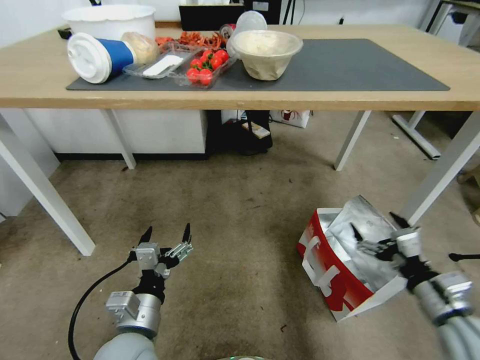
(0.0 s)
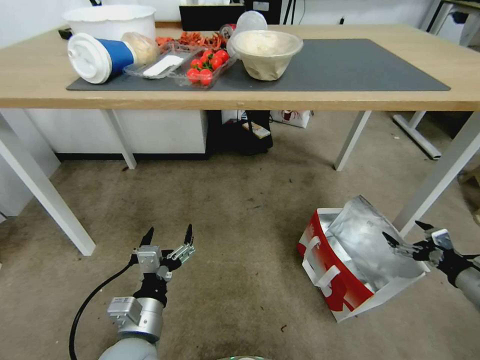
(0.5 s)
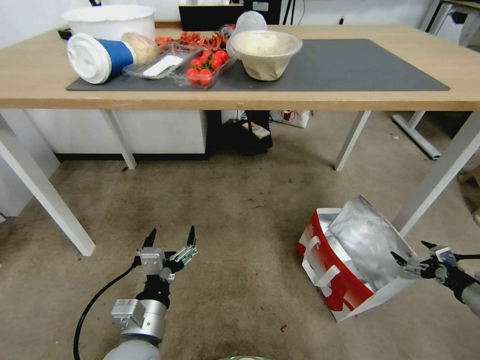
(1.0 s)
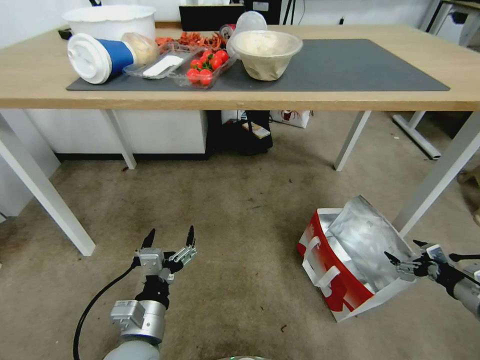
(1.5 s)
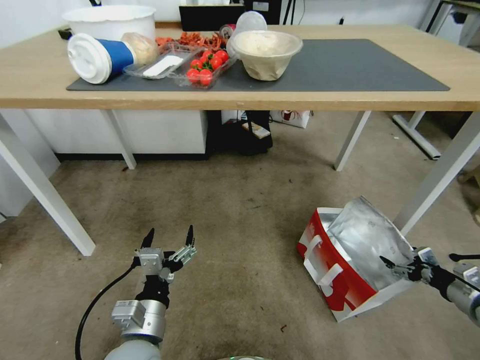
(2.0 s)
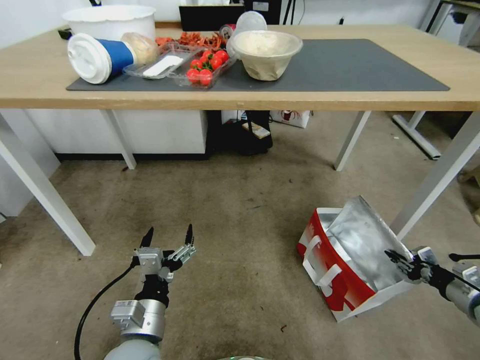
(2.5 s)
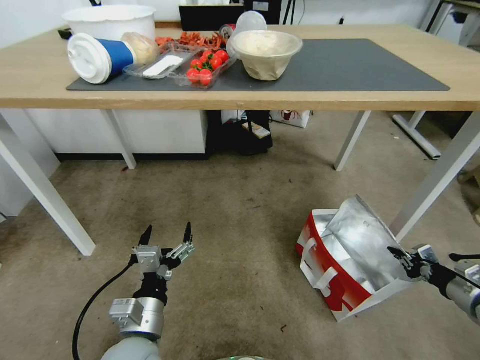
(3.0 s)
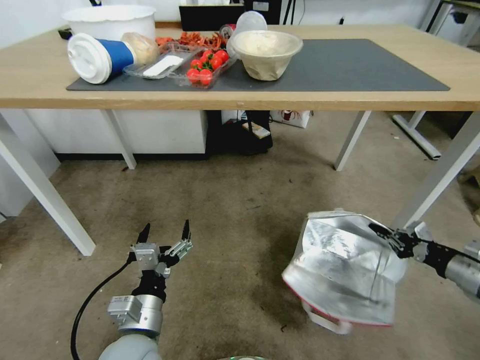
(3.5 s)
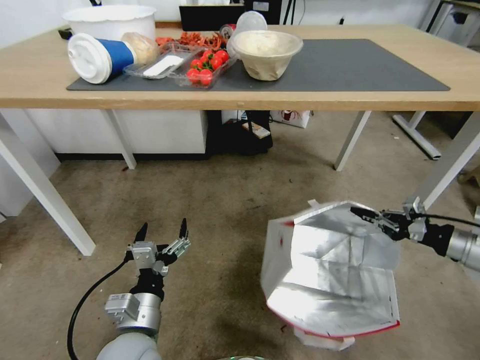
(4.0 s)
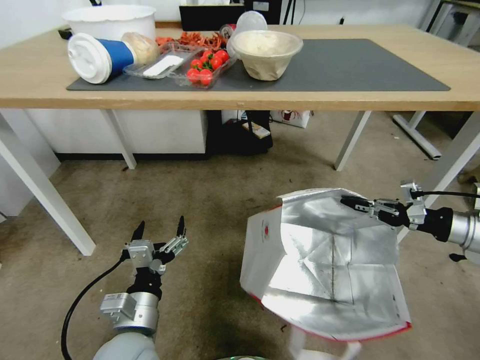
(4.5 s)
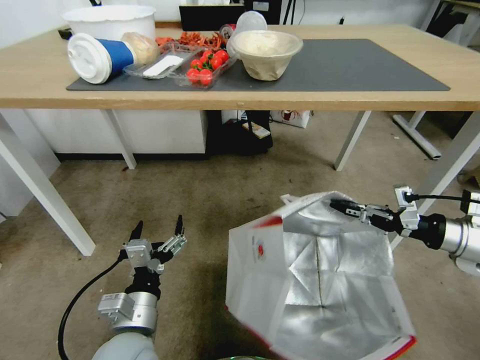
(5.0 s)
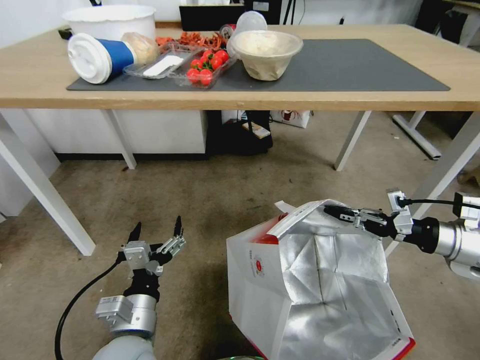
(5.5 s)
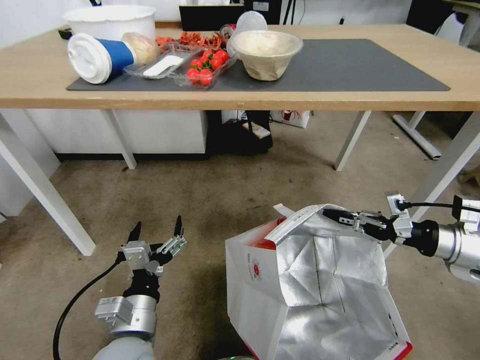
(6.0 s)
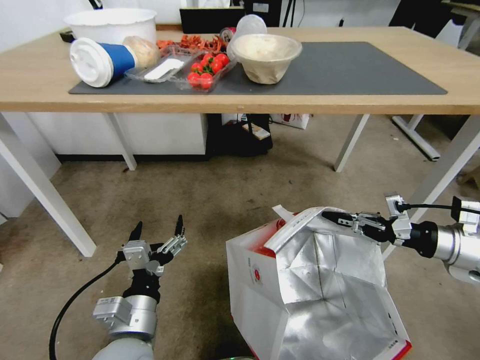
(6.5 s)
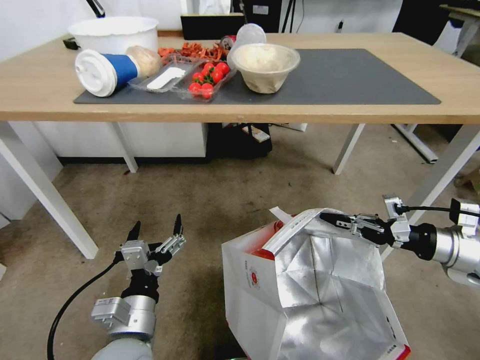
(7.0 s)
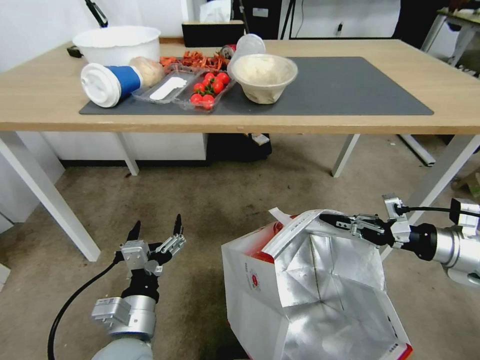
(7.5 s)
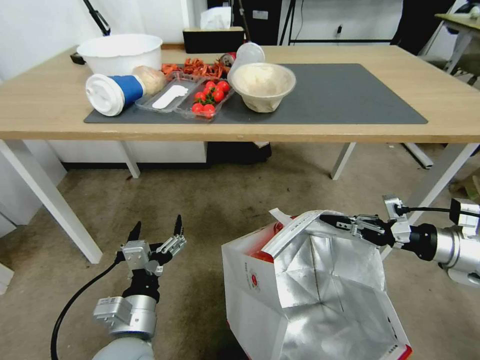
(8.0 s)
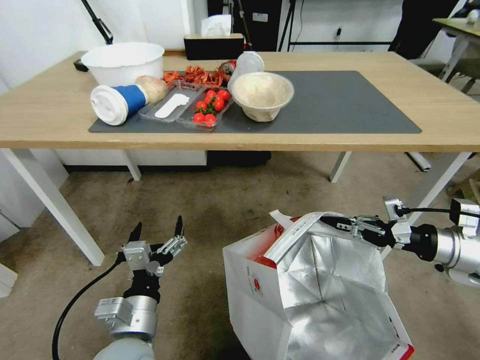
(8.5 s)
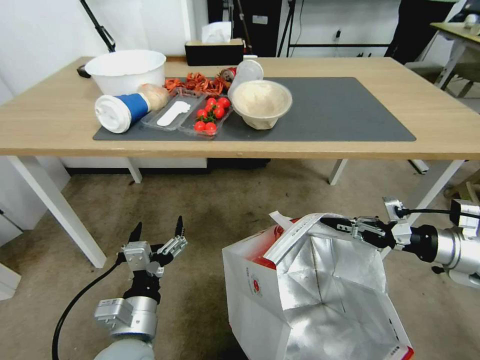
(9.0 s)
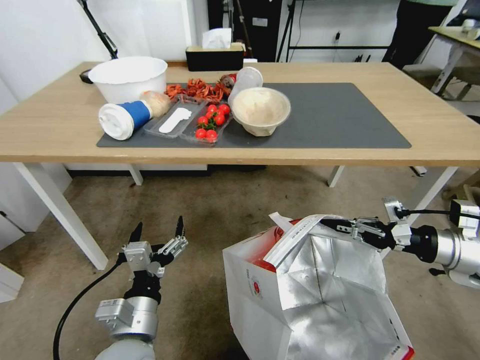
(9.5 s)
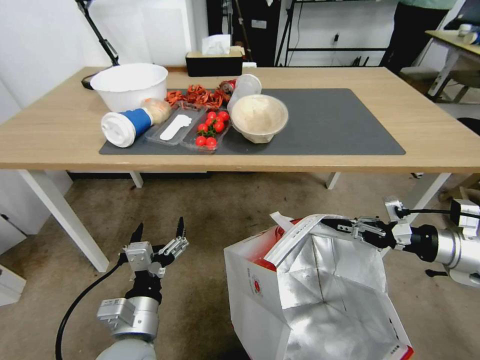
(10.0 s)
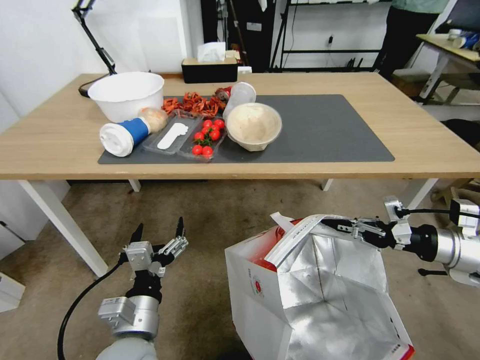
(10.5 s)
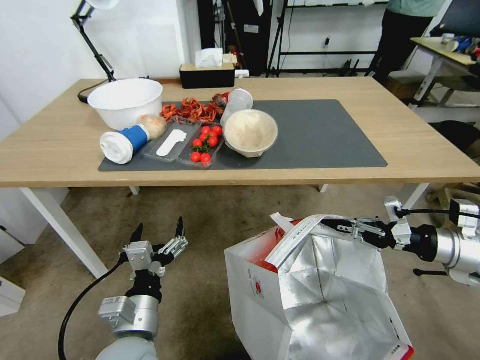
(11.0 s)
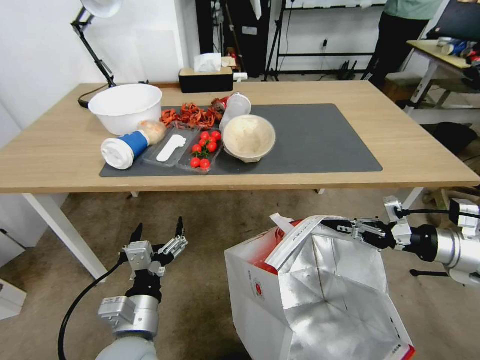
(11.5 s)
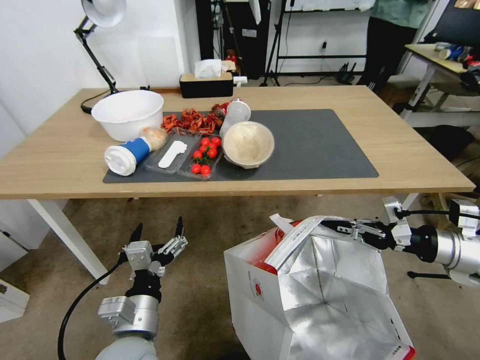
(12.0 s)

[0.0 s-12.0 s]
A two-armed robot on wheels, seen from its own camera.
Task of the whole recording: Pick up the food delivery bag from the floor and place it on the table.
0.0 to 2.0 s: The right gripper goes approximately 20 cm to the right and downward.
2.0 to 4.0 s: The right gripper shifts about 15 cm upward, and closes.
4.0 to 6.0 s: The right gripper changes place by approximately 5 cm.

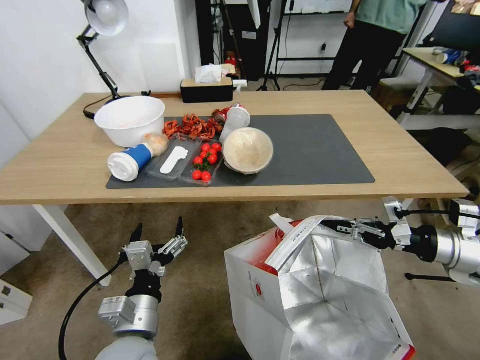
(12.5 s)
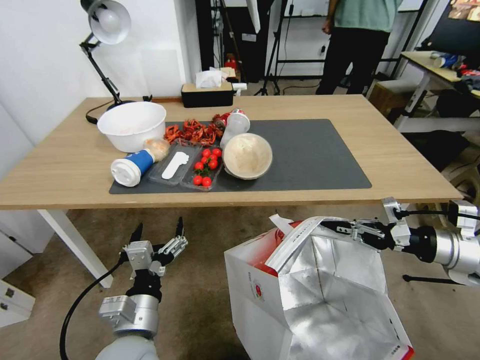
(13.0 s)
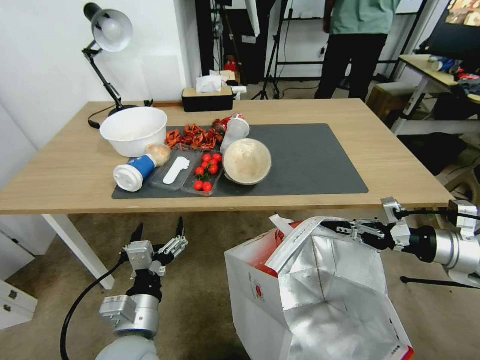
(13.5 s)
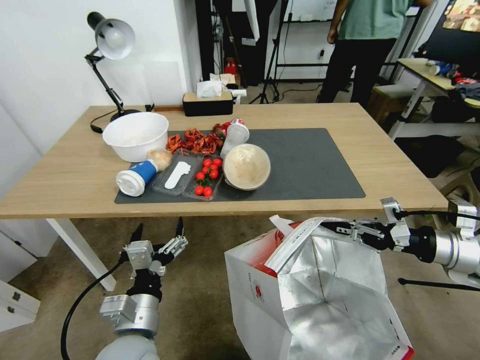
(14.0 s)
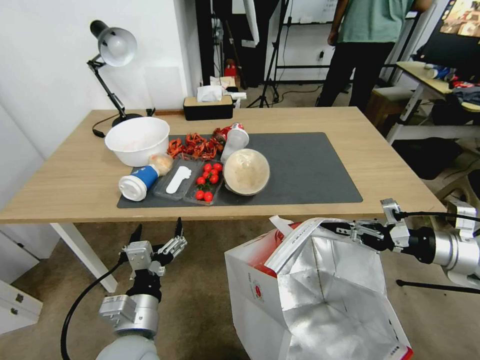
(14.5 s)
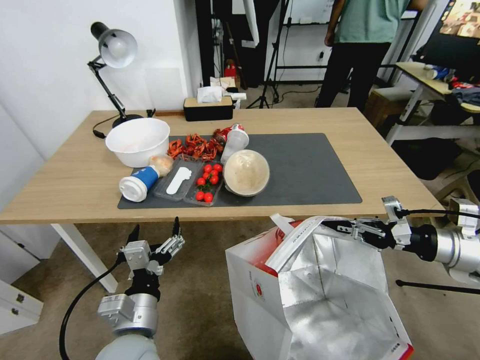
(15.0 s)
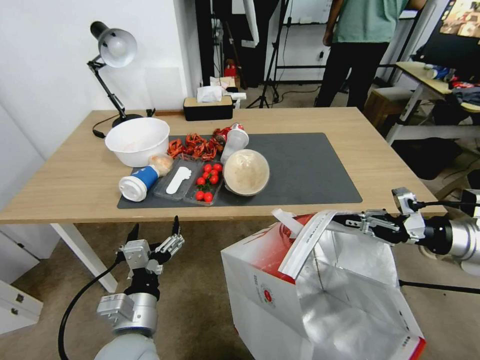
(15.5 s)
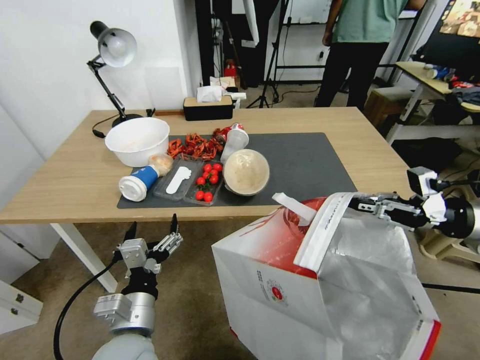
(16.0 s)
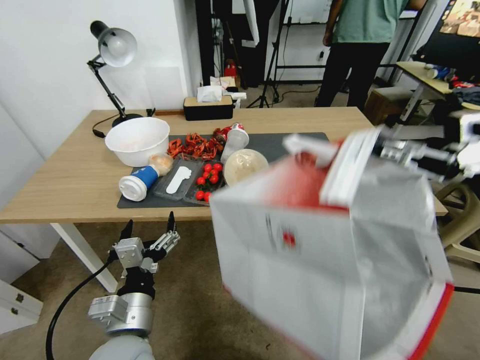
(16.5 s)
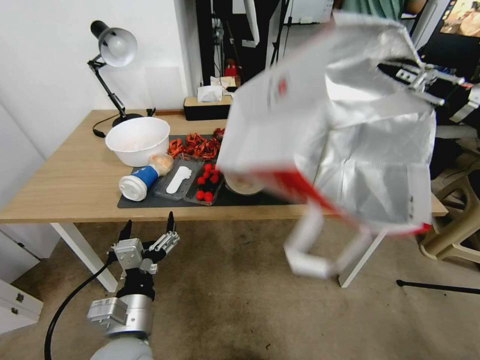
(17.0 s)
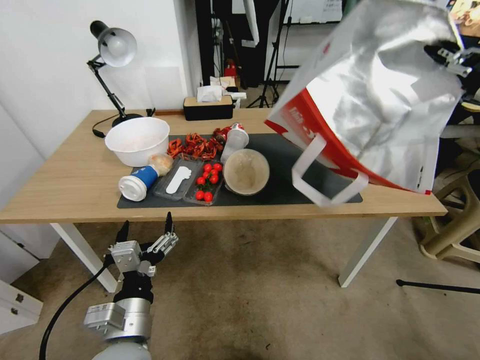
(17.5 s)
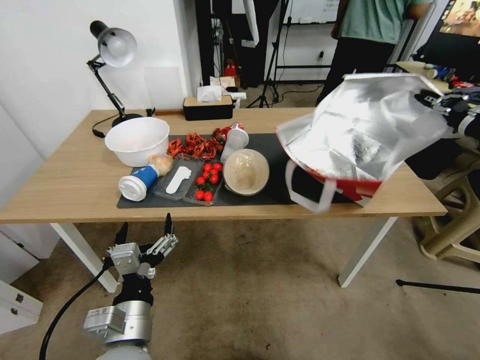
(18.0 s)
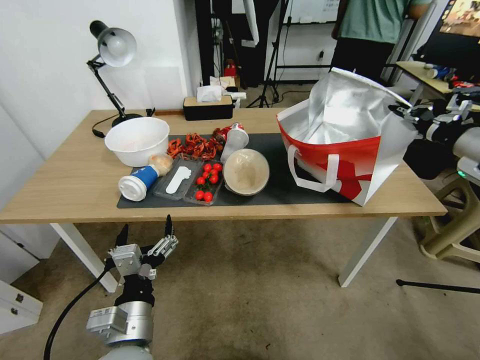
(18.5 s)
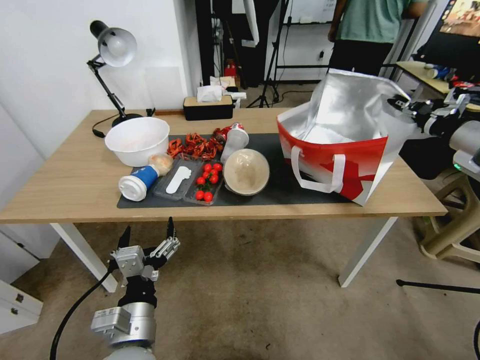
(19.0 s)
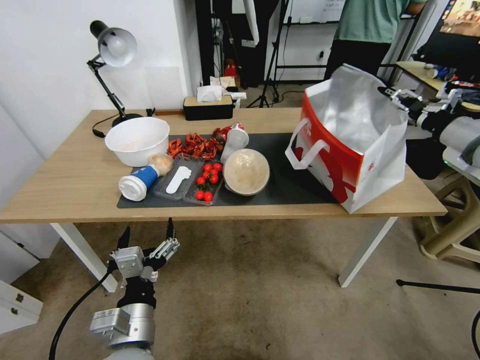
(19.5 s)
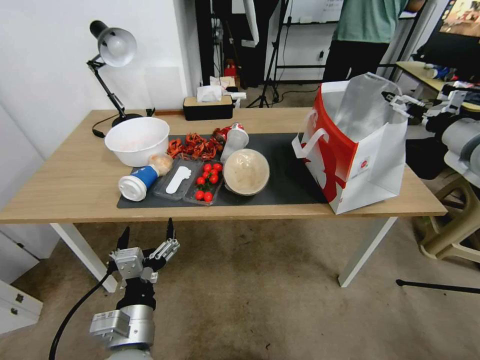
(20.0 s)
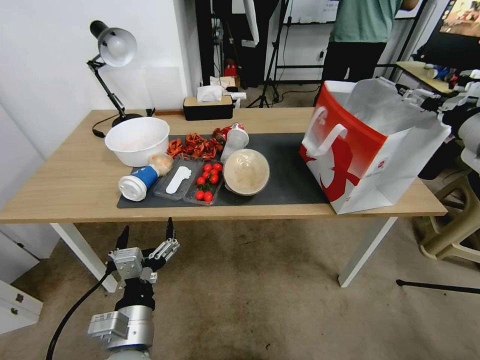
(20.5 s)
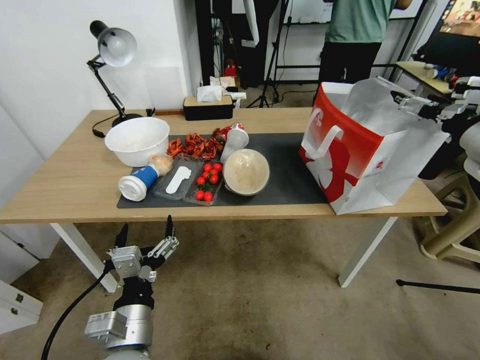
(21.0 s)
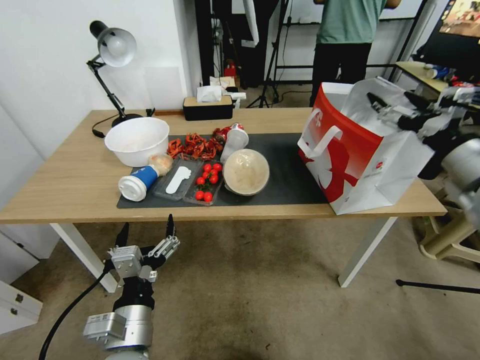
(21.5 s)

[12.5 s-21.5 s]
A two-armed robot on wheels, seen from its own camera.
Task of the whole recording: Pick up the food delivery bag from the floor and place it on the table.
14.5 to 17.0 s: The right gripper goes some 20 cm upward.
17.0 to 19.5 s: The right gripper moves forward and downward, about 10 cm, and opens up.
19.5 to 21.5 s: The right gripper goes about 10 cm backward and to the left, and opens its fingers.

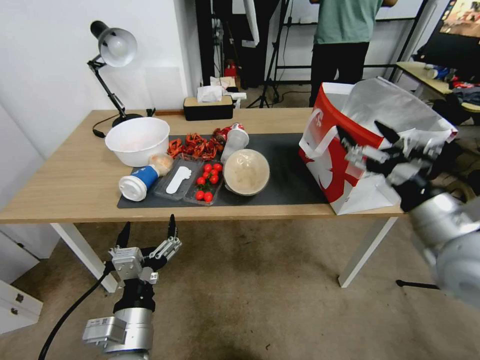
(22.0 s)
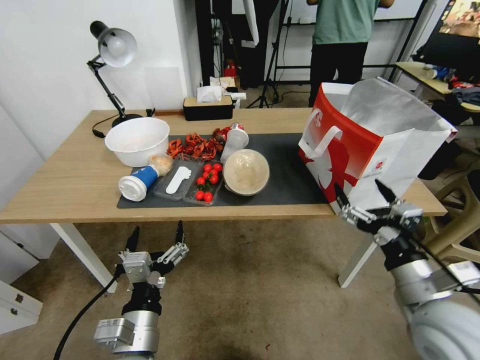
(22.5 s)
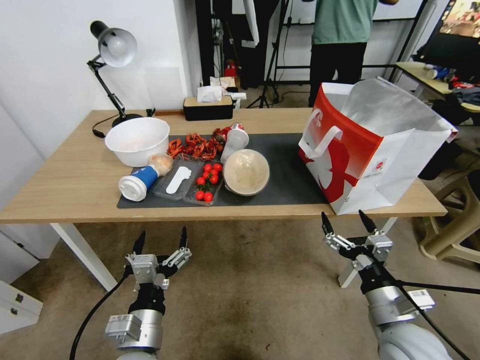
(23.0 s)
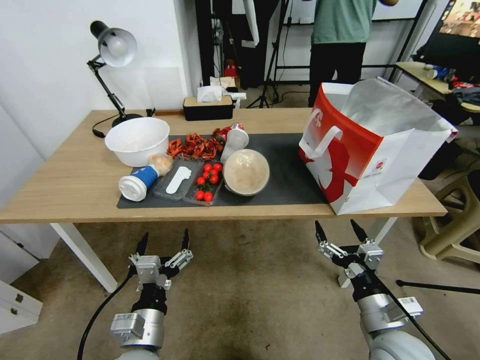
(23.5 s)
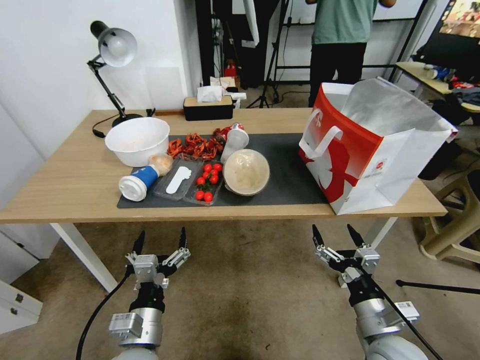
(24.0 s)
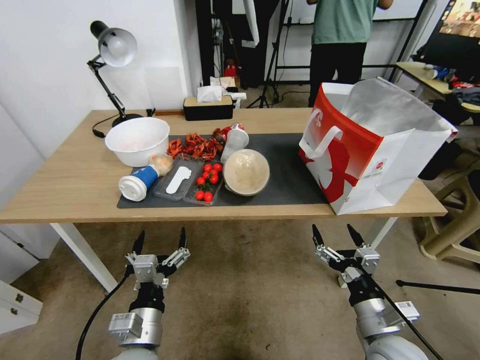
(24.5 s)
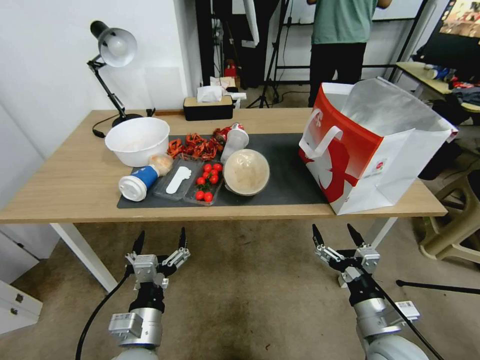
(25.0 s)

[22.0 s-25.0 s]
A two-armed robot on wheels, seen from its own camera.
Task of the whole recording: Pick up the food delivery bag from the floor and place it on the table.
22.0 to 23.5 s: The left gripper moves downward, approximately 5 cm; the right gripper is displaced downward by about 20 cm.
23.5 to 25.0 s: Both grippers stay put.

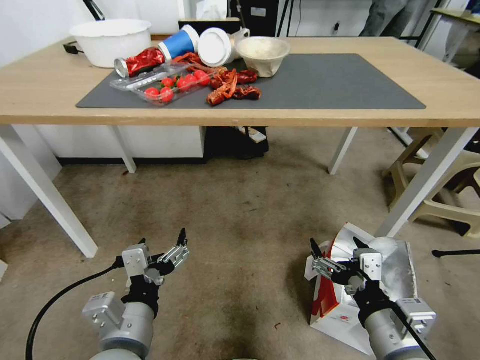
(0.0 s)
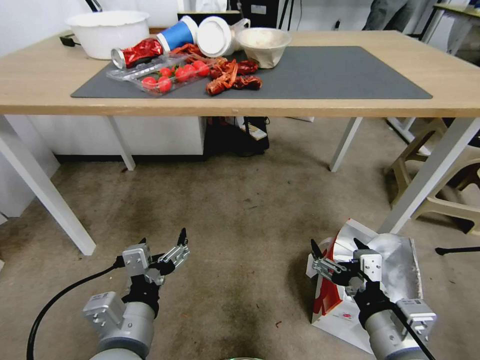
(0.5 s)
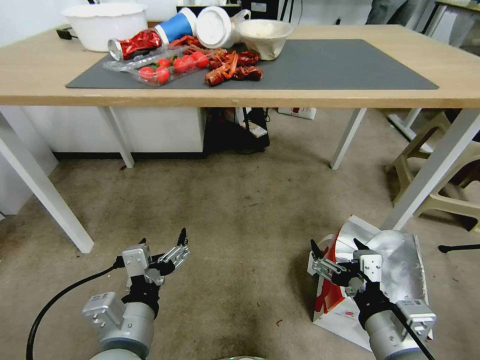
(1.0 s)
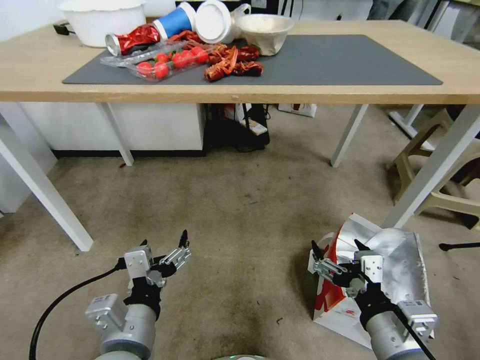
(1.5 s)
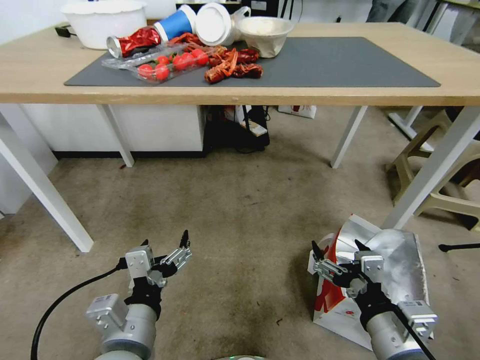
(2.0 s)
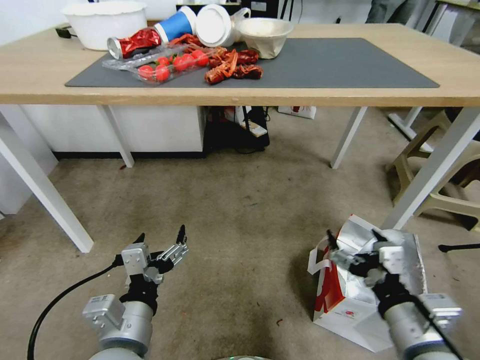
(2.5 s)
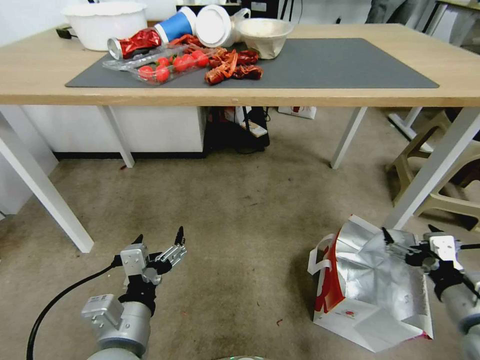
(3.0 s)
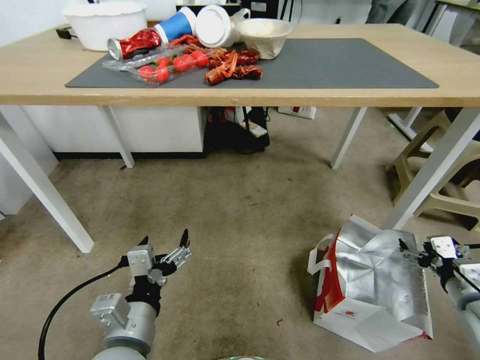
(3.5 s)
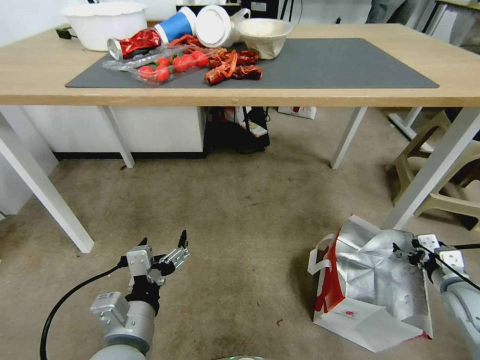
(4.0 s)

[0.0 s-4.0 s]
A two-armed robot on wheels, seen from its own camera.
Task of the whole recording: Pick up the food delivery bag from the floor and place it on the table.
2.0 to 4.0 s: The right gripper travels to the right and forward by roughly 25 cm.
